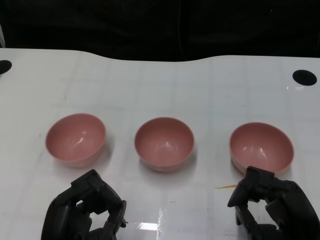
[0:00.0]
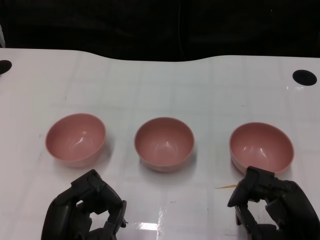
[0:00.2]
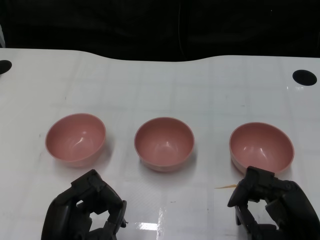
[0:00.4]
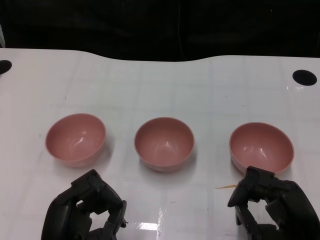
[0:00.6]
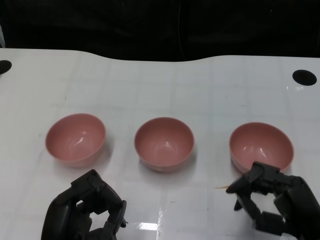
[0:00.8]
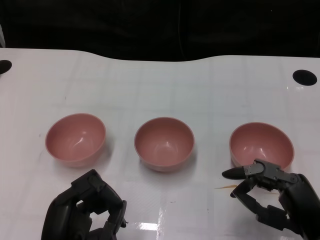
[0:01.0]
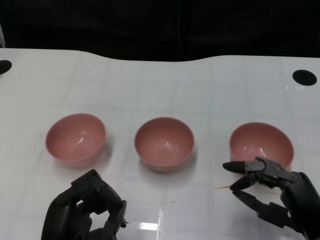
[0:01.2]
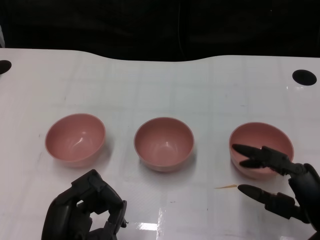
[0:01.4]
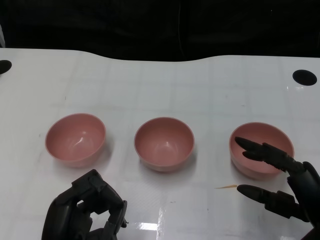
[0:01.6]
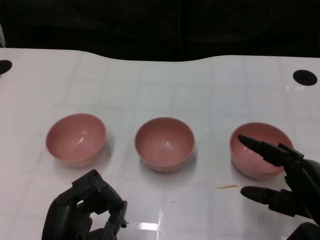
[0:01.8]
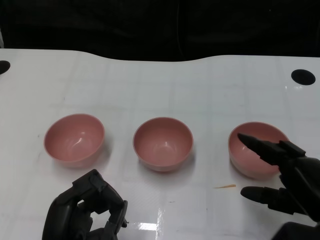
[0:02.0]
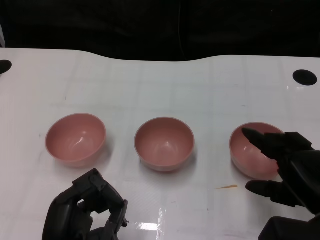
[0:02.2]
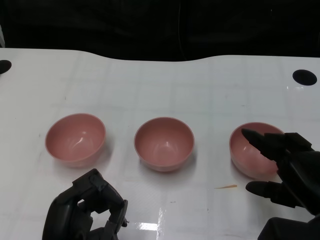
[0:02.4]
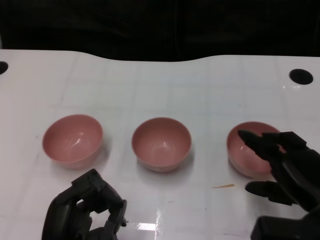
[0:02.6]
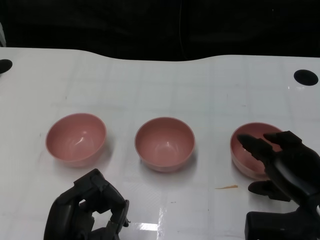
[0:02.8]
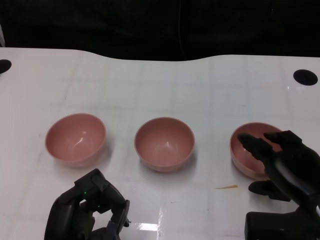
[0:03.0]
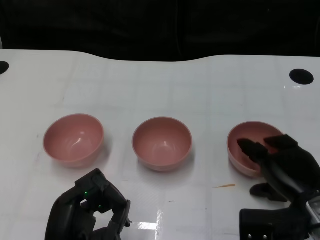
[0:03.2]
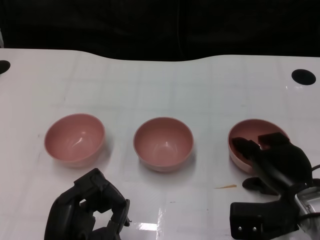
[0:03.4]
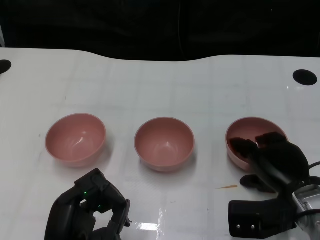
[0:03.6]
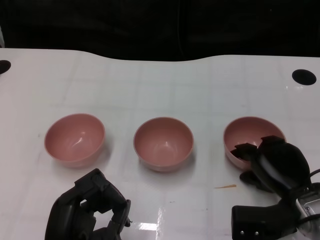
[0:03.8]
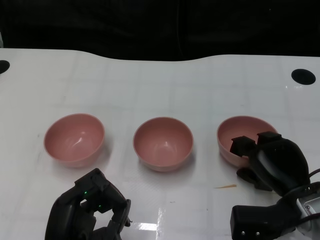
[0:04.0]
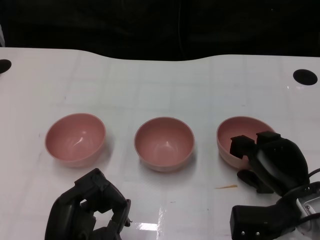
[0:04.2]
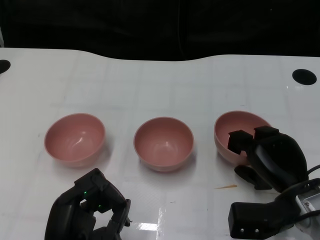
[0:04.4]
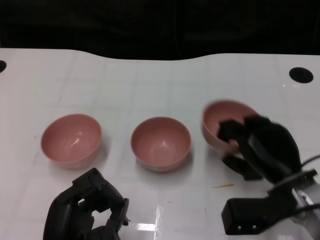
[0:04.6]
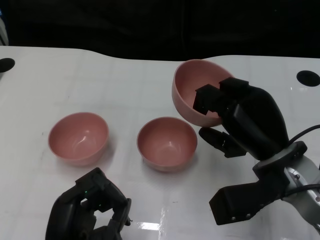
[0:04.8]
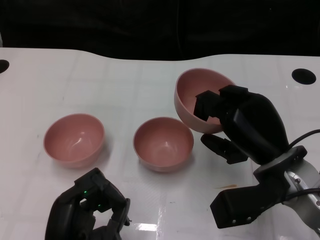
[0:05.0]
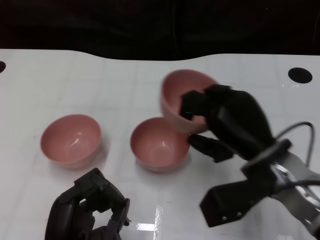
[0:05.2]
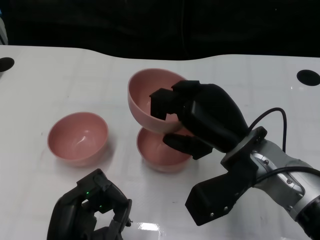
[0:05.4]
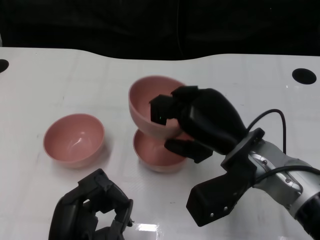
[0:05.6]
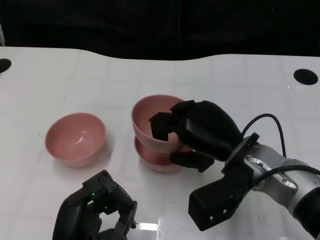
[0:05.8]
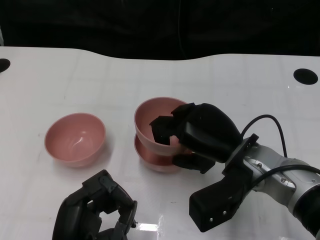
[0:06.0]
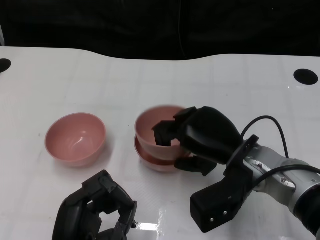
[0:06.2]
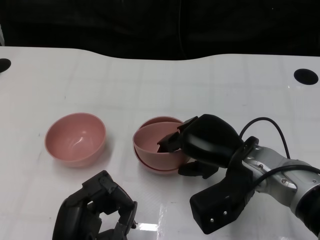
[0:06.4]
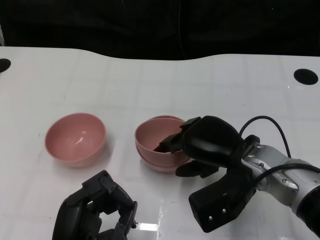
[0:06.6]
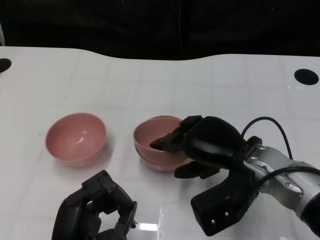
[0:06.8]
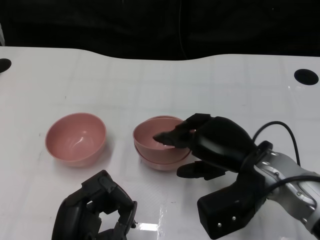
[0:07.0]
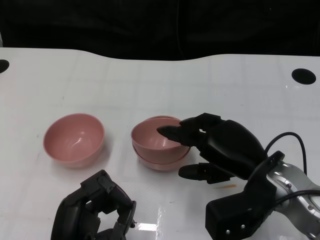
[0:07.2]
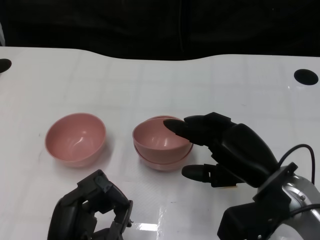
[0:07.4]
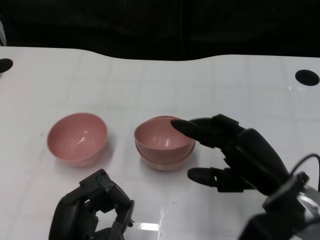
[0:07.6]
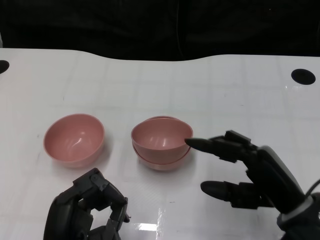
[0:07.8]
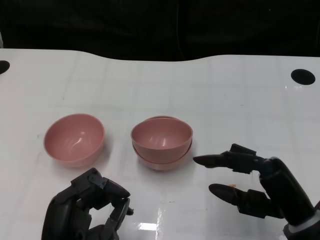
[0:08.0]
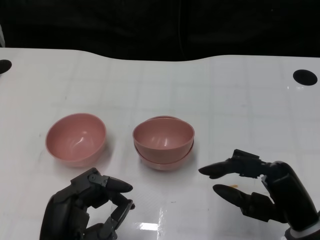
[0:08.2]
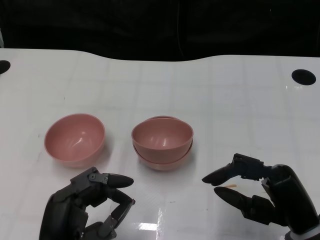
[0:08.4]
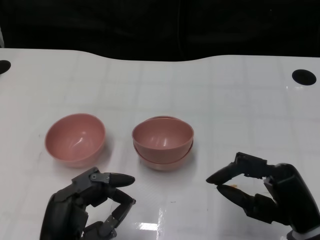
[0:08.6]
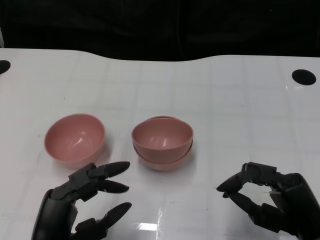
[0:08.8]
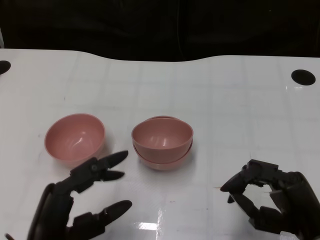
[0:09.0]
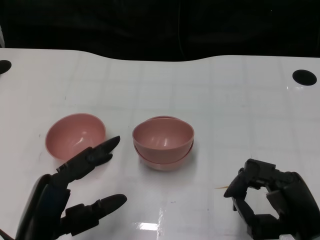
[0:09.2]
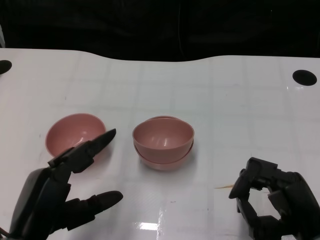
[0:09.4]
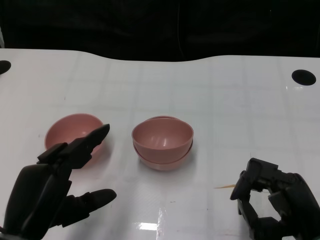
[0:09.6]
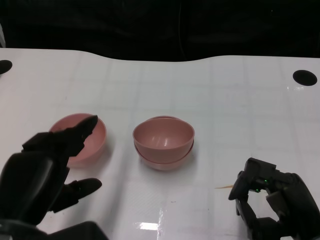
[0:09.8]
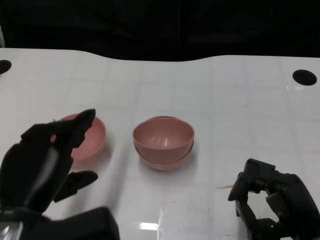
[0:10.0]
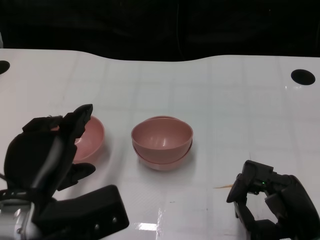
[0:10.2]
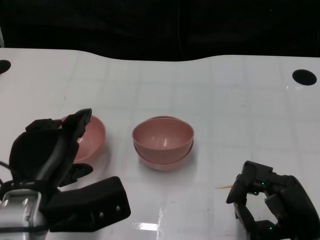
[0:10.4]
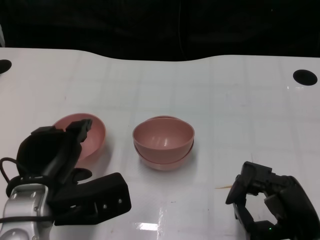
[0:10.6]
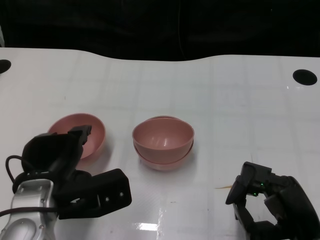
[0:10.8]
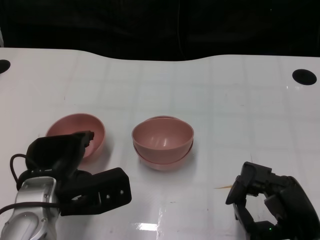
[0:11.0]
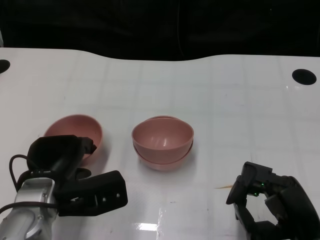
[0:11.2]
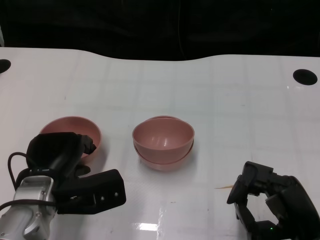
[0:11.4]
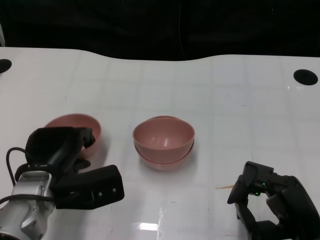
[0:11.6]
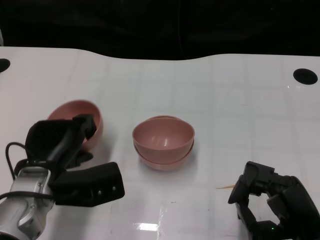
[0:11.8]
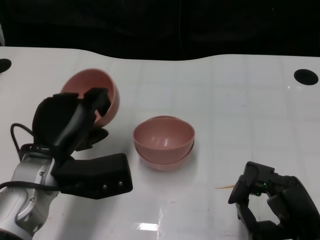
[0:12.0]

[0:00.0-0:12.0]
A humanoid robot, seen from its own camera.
Task of the whole recording: Pick up the bowl on one side of the table and place it on top of the middle bowl, then pick up the bowl on the other side of the table and place it on top of the middle bowls.
Step, 0:00.8 to 0:04.2: Grasp the bowl on the right with the right gripper.
Step, 0:04.4 to 0:07.4: Place the bowl on the right onto the bowl in the middle with right gripper.
Step, 0:07.6 to 0:11.2: Grasp the bowl on the left with the left gripper.
0:03.0 to 0:04.4: The hands move only a little.
0:04.4 to 0:06.0: The right hand travels to the left and upward by approximately 10 cm.
0:06.0 to 0:07.6: The right hand travels to the right by roughly 5 cm.
0:07.6 to 0:09.0: The right hand goes roughly 5 cm backward.
0:09.0 to 0:10.4: The left hand goes some 10 cm forward and upward.
0:10.4 to 0:12.0: The left hand moves forward, about 5 cm.

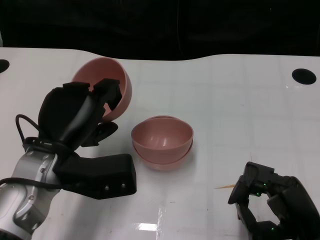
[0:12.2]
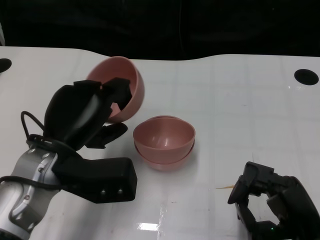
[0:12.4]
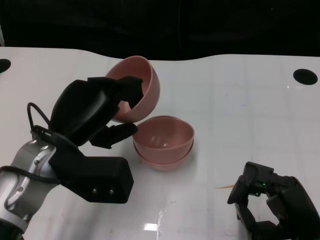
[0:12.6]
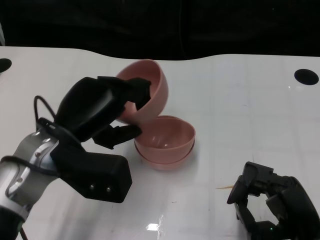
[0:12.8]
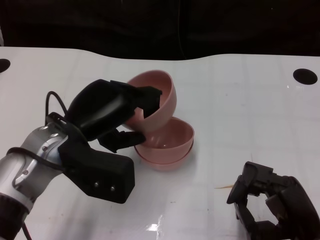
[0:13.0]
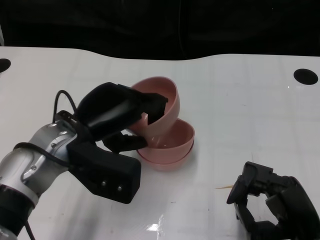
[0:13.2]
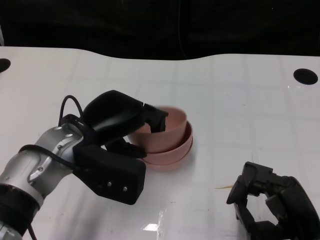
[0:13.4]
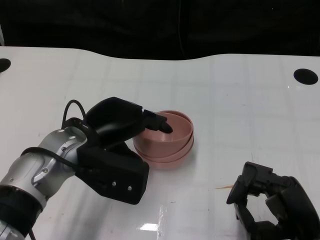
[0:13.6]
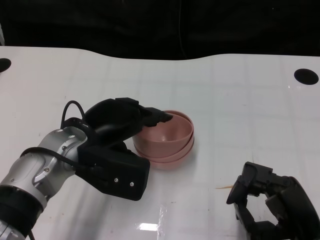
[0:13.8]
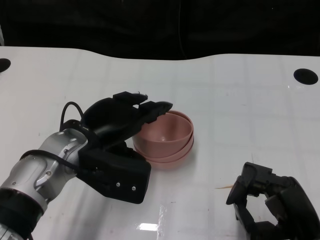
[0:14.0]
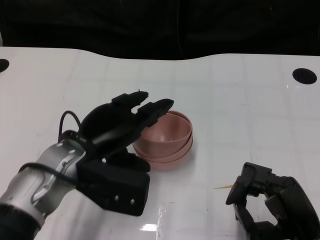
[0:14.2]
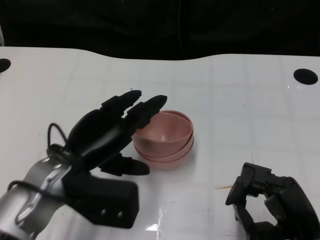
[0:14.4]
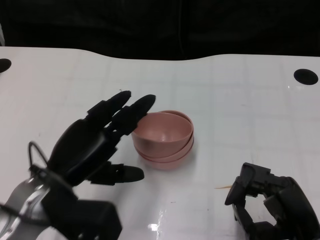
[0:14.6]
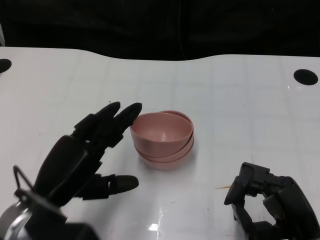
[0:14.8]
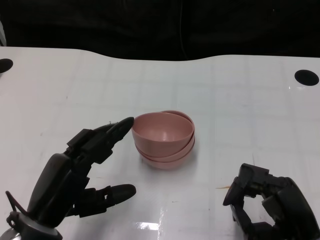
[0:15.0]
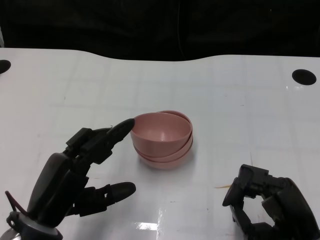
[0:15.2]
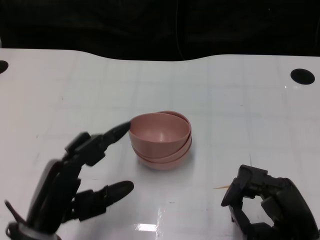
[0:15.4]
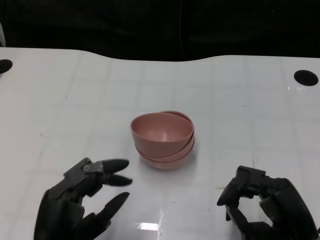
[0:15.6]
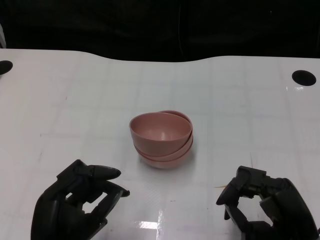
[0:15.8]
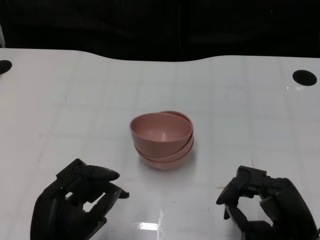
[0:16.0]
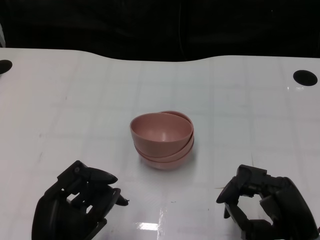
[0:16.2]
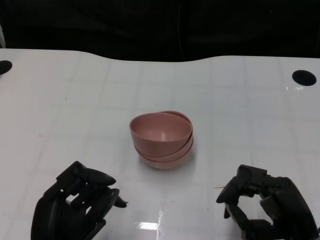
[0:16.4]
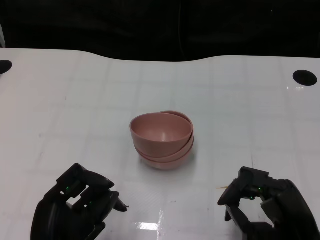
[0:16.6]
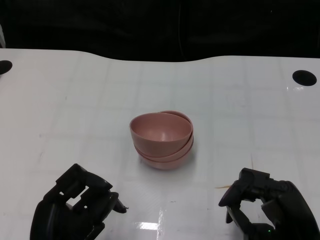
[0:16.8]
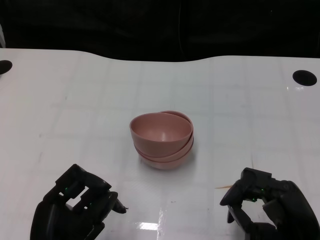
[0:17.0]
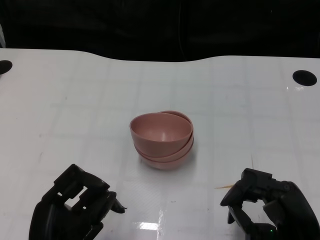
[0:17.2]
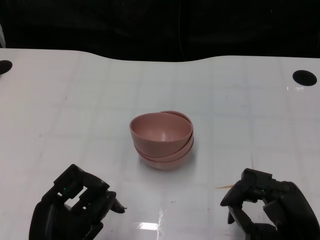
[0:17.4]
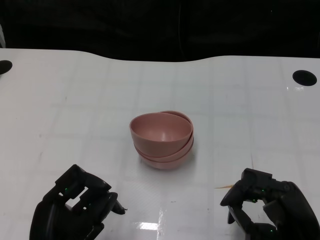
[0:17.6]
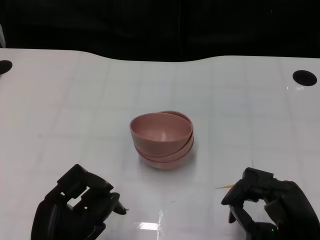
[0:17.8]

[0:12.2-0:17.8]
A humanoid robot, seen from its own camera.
Task of the whole recording: Pick up the bowl on one side of the table and place it on top of the middle bowl, then pick up the bowl on the other side of the table and place it on top of the middle bowls.
Step, 0:12.2 to 0:14.6: Place the bowl on the left onto the bowl in the middle with left gripper.
0:13.6 to 0:15.0: The left hand moves backward and to the left, some 10 cm.
0:15.0 to 0:16.4: The left hand moves about 5 cm.
0:16.4 to 0:17.8: There are only small adjustments of the hands.

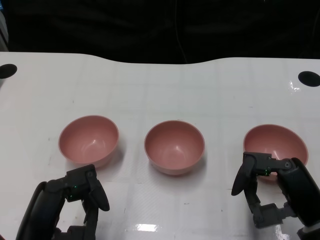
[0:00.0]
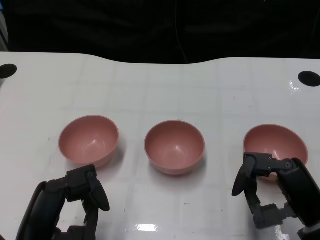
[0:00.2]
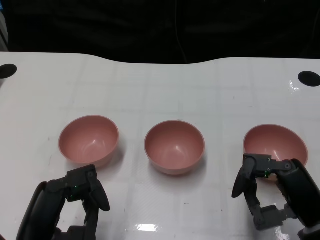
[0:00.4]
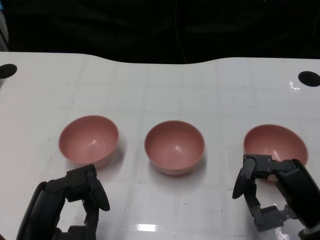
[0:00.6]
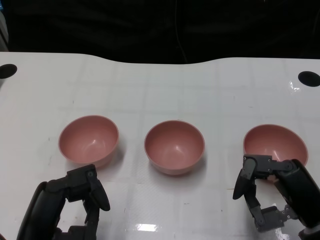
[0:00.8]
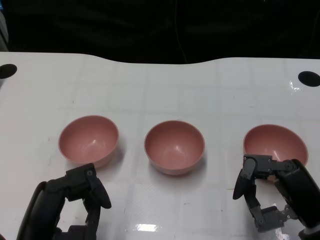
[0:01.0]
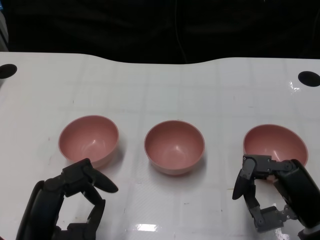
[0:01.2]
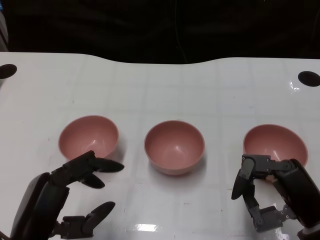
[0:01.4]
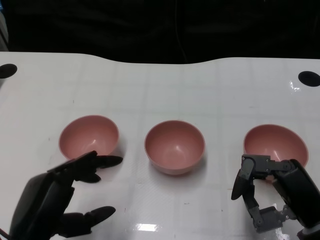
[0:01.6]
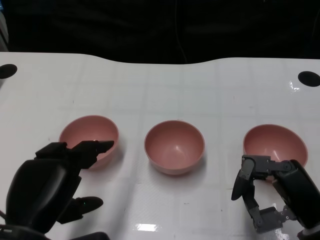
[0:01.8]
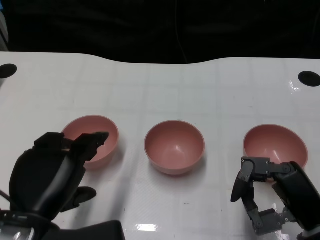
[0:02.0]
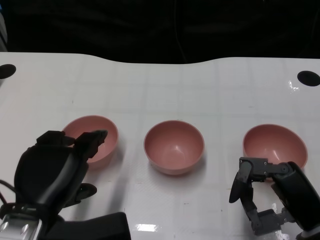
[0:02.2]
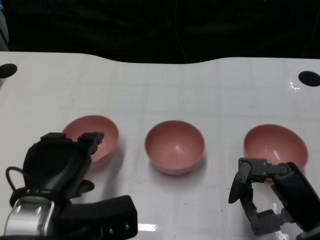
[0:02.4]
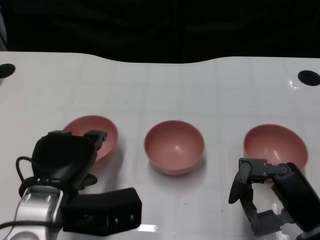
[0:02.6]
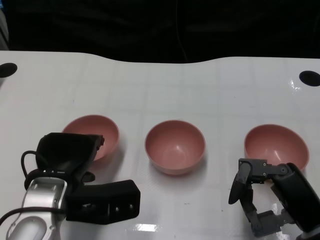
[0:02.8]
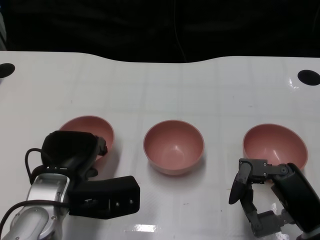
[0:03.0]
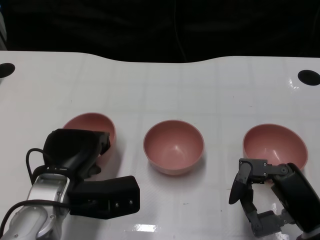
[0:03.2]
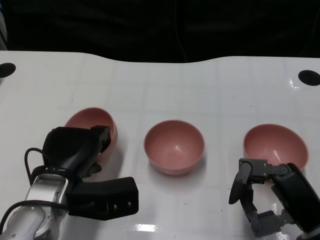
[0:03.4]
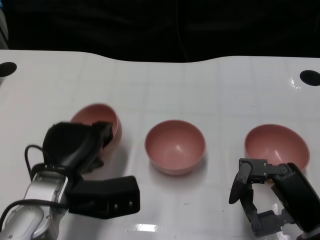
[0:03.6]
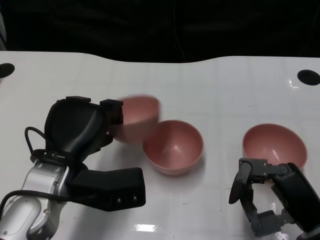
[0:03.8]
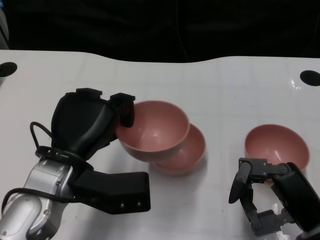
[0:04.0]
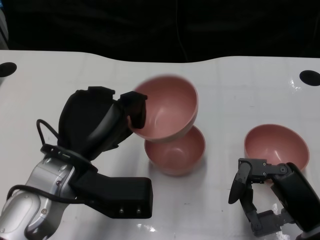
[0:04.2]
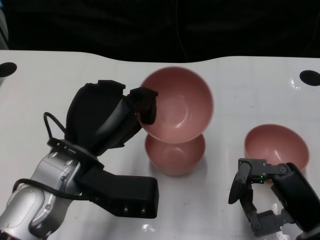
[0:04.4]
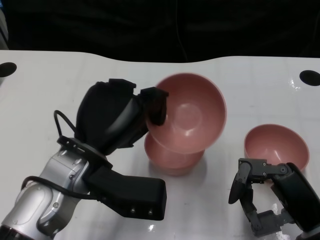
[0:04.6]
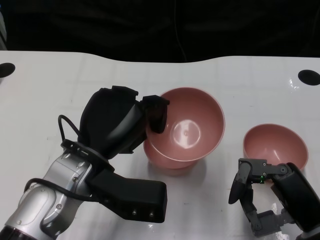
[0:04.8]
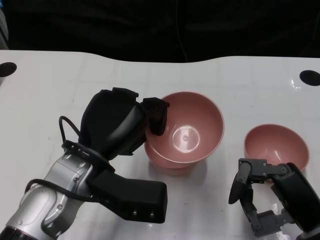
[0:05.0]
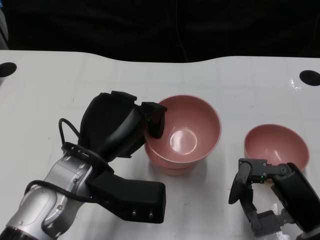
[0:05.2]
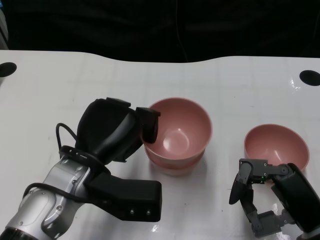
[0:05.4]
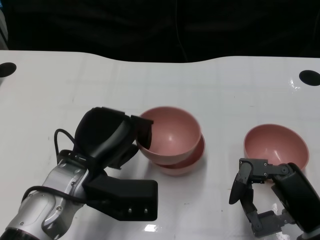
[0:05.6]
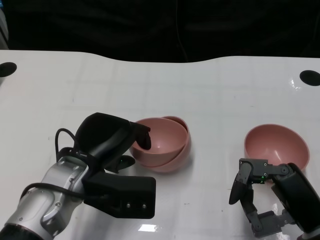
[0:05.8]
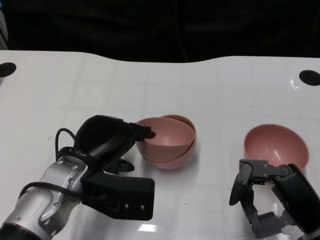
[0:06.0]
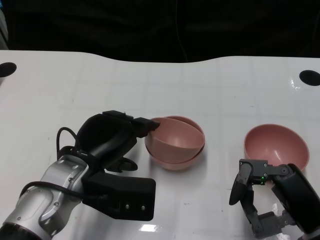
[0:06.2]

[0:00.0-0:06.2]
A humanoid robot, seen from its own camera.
Task of the whole recording: Pick up the bowl on one side of the table and place it on top of the middle bowl, then pick up the bowl on the other side of the table and place it on top of the middle bowls.
Step, 0:01.2 to 0:03.6: Grasp the bowl on the left with the left gripper.
0:01.6 to 0:03.2: The left hand travels forward by some 10 cm.
0:03.2 to 0:04.6: The left hand shifts some 5 cm upward.
